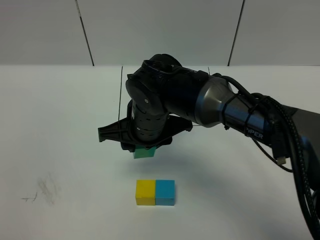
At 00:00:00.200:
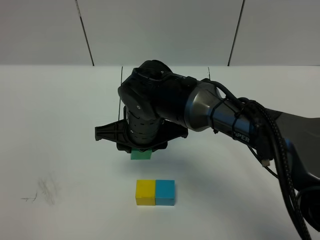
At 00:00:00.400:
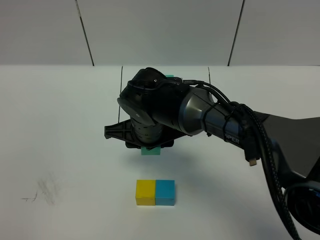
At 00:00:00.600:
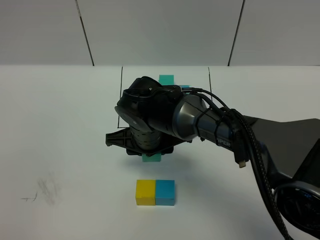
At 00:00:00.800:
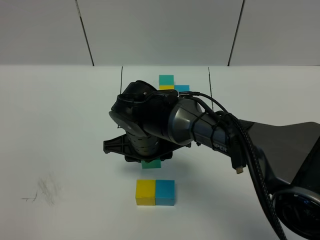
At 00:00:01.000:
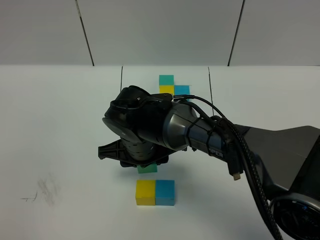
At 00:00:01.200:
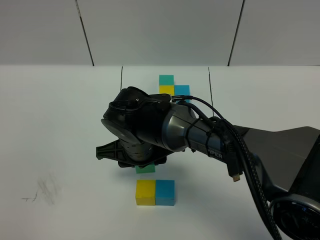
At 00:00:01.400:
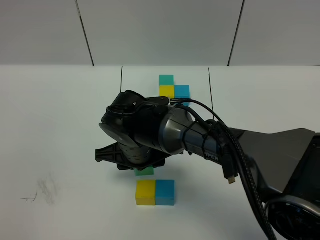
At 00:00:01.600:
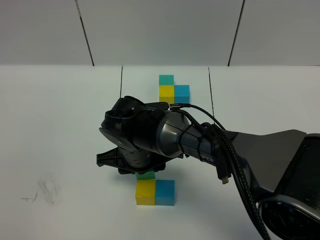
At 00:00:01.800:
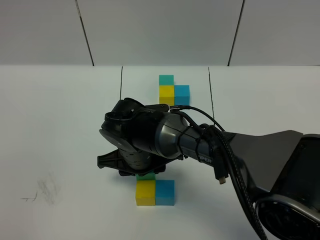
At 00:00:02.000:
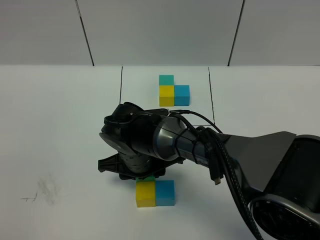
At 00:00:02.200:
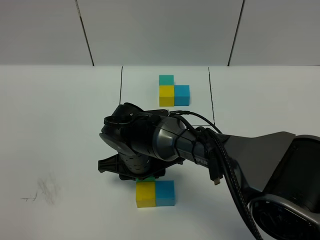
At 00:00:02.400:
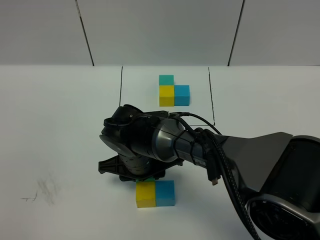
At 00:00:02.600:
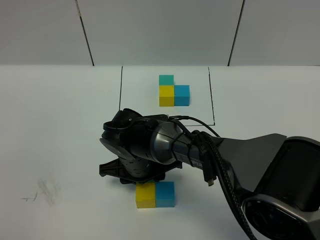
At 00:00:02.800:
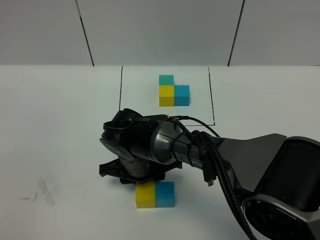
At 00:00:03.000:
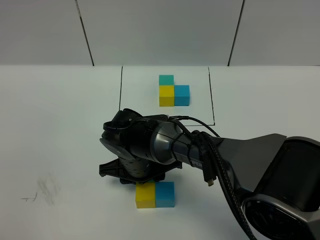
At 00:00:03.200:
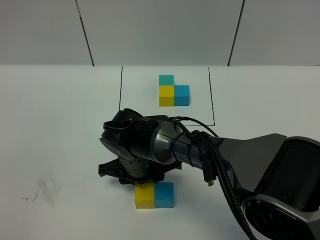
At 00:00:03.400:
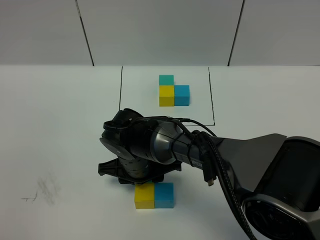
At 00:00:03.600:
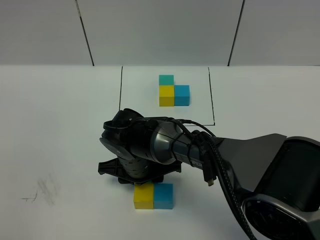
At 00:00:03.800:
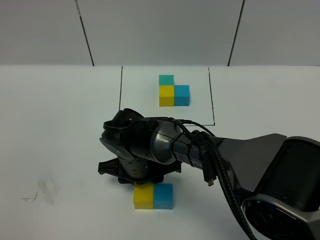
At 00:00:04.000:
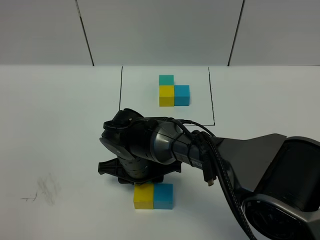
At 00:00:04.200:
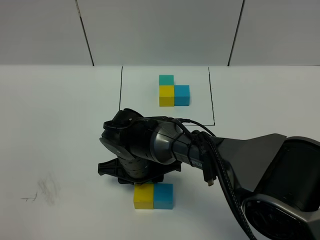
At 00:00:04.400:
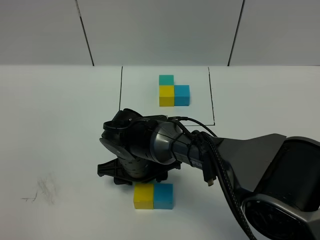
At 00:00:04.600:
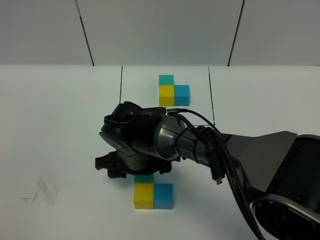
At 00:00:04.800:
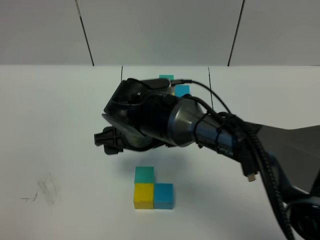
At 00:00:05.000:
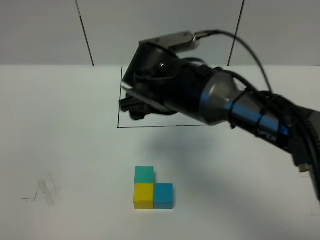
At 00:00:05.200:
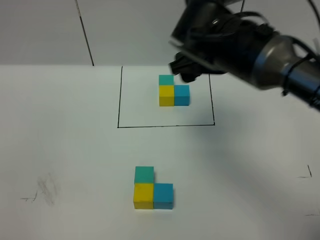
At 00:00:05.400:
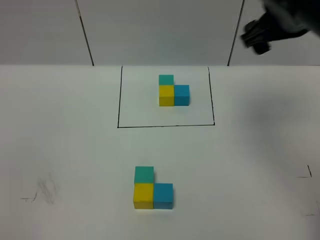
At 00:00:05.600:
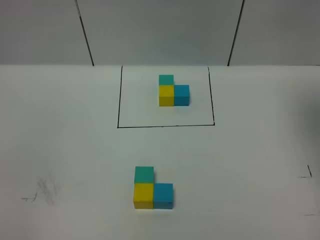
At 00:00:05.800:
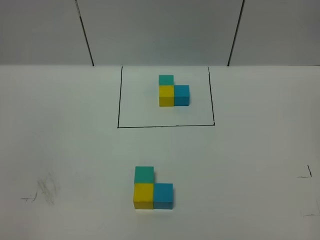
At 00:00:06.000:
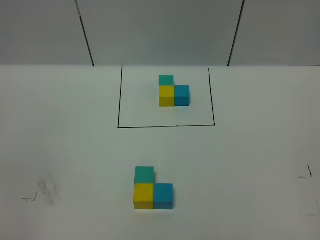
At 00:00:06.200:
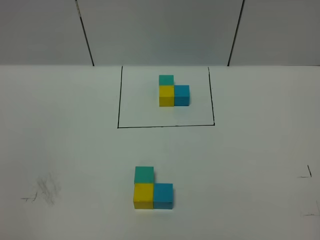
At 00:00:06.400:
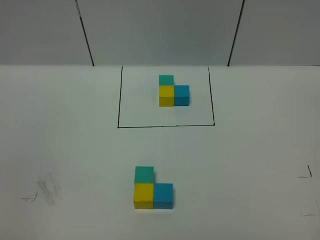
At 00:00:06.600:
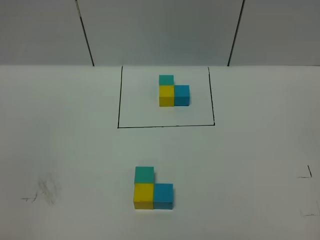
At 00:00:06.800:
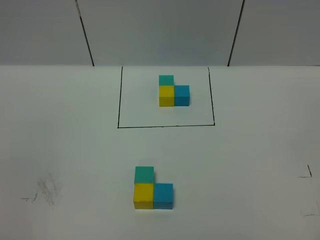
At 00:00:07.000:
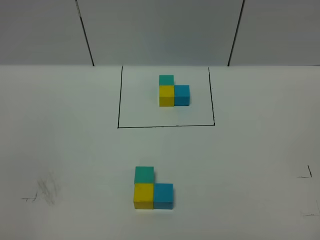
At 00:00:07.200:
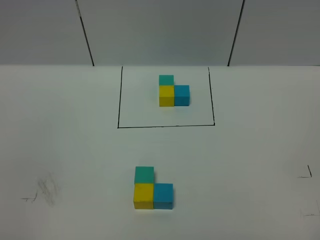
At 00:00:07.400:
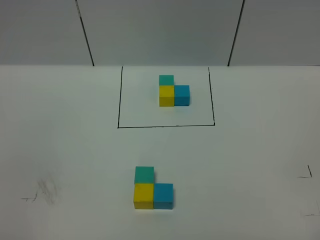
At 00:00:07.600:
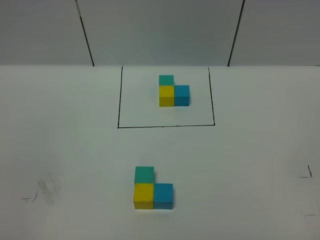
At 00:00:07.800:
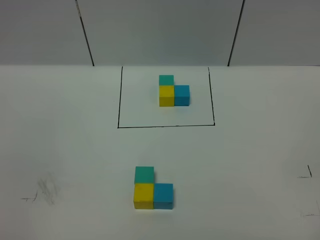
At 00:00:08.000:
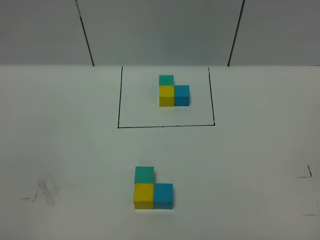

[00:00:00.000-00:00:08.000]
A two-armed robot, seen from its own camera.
Task of the whole recording: According to the building block template in front, assemble the scattered blocks together.
Step, 00:00:00.000 to 00:00:04.600: Put the green cube on the behind of the yellow cube.
00:00:00.000 to 00:00:01.600: The right gripper shifts about 5 cm downward.
00:00:01.600 to 00:00:03.200: The grippers move only a little.
00:00:03.200 to 00:00:04.800: The right gripper travels upward by roughly 10 cm, and opens its fingers.
00:00:04.800 to 00:00:06.400: The right gripper goes about 50 cm backward, to the right and upward.
